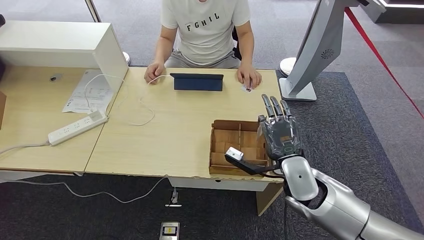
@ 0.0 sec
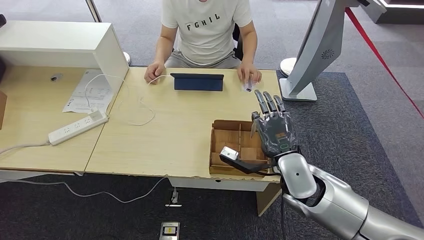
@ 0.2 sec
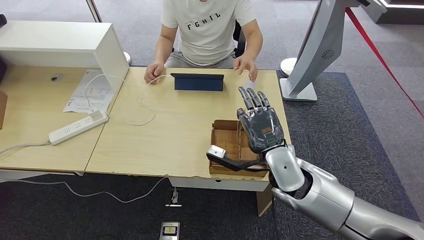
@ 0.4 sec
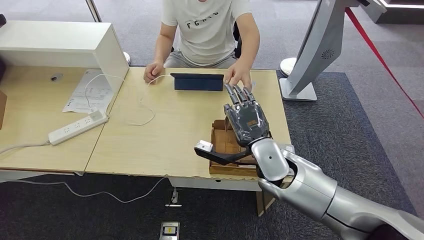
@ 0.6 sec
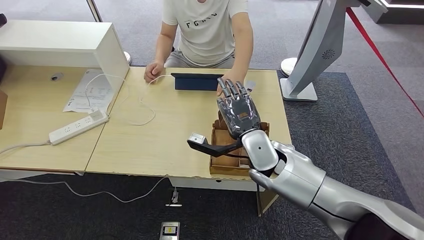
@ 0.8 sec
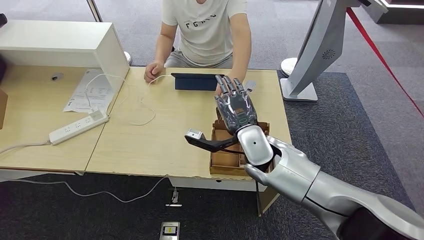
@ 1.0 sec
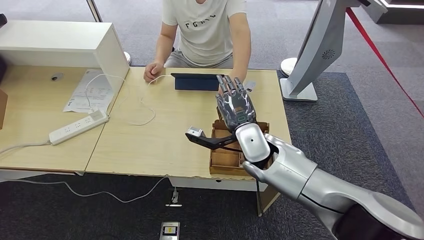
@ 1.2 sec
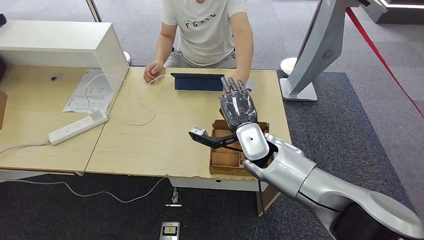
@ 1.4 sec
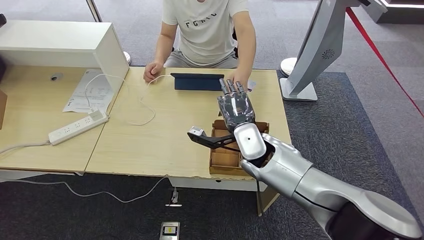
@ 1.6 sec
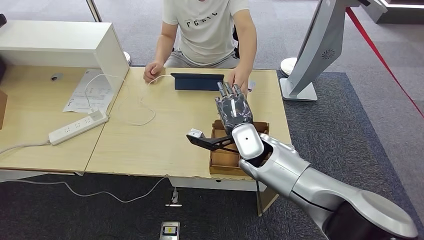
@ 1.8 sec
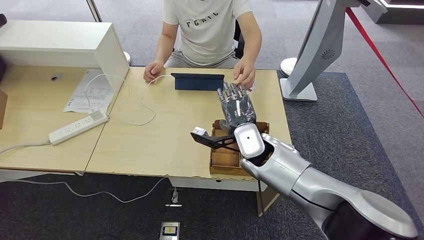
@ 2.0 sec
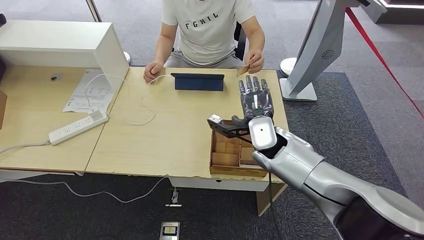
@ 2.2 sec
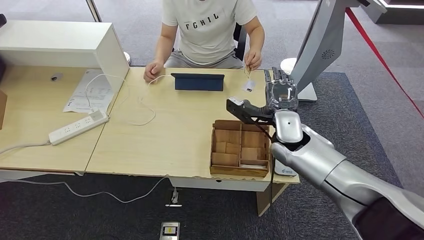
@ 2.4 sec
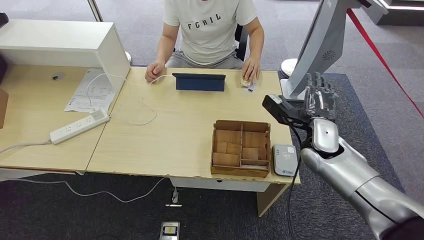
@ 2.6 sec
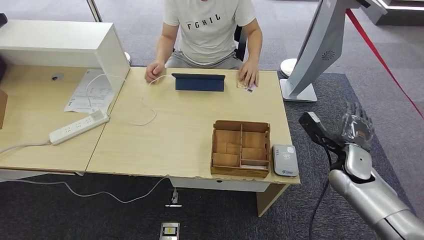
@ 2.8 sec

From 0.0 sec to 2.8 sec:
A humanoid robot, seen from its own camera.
Step, from 1.0 sec to 2.8 sec: Hand the room key to the person.
From 0.0 sec to 1.4 sec: The right hand is displaced to the left and forward by about 10 cm.
From 1.4 sec to 2.8 sec: The right hand moves to the right, some 25 cm.
